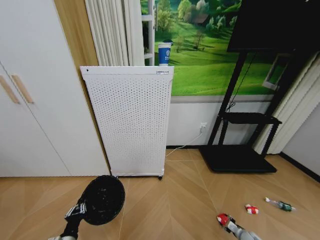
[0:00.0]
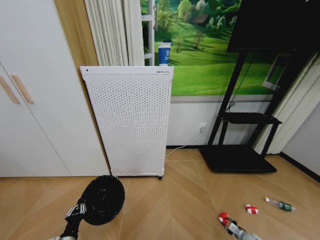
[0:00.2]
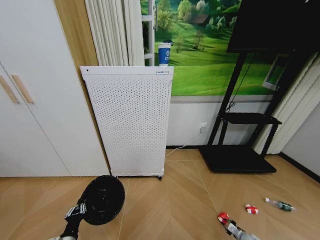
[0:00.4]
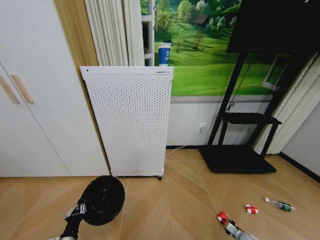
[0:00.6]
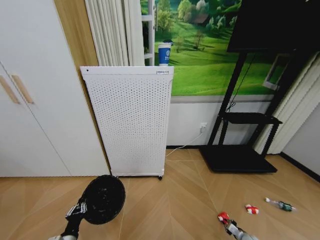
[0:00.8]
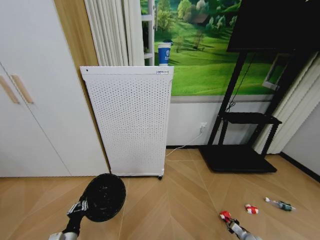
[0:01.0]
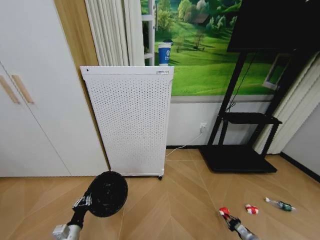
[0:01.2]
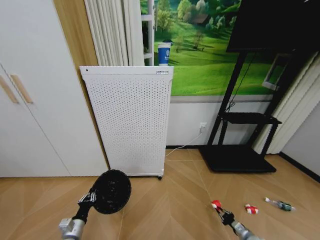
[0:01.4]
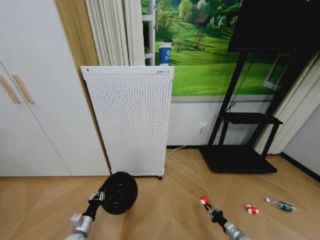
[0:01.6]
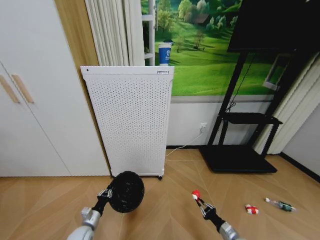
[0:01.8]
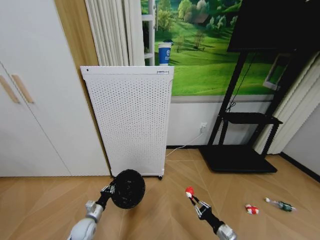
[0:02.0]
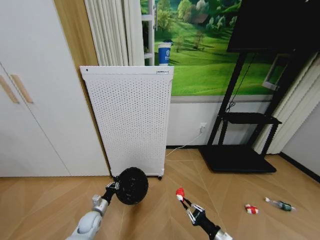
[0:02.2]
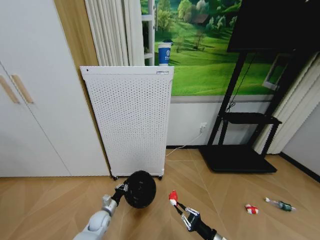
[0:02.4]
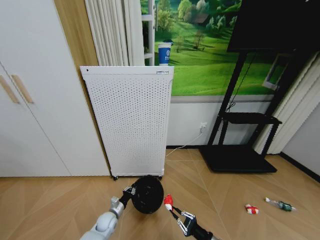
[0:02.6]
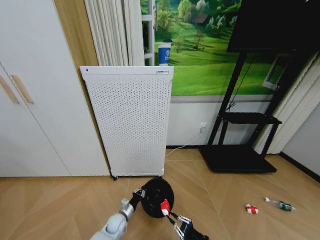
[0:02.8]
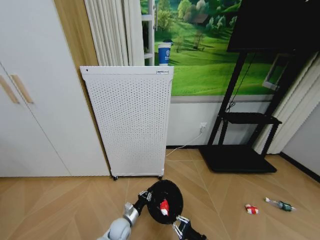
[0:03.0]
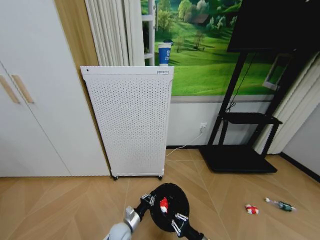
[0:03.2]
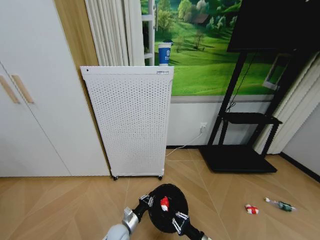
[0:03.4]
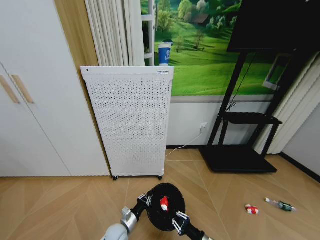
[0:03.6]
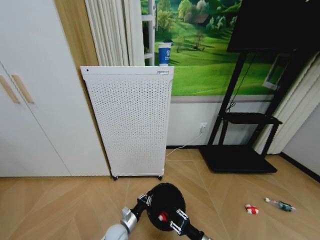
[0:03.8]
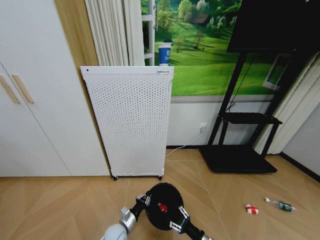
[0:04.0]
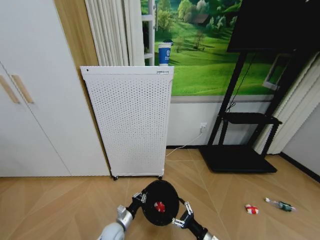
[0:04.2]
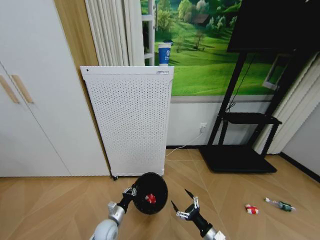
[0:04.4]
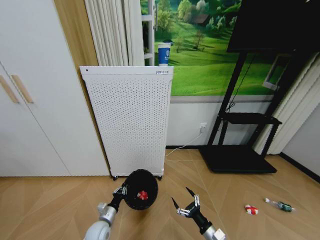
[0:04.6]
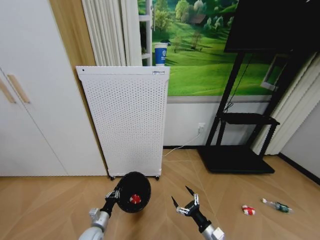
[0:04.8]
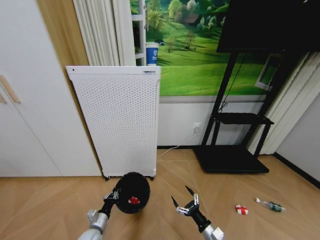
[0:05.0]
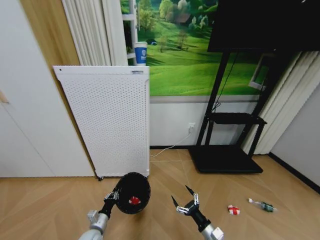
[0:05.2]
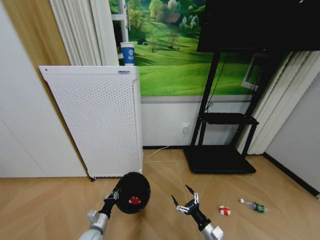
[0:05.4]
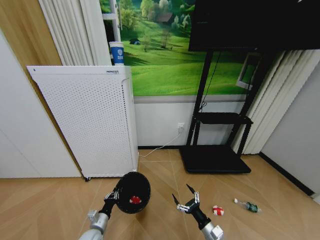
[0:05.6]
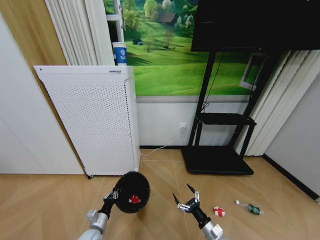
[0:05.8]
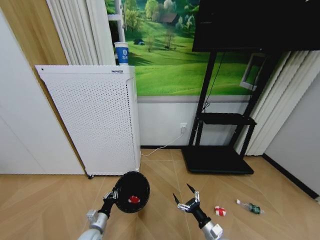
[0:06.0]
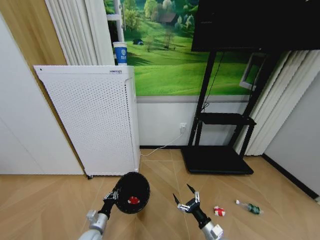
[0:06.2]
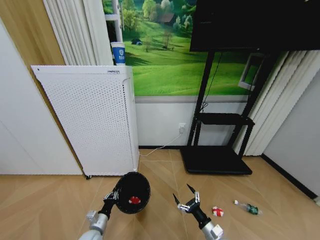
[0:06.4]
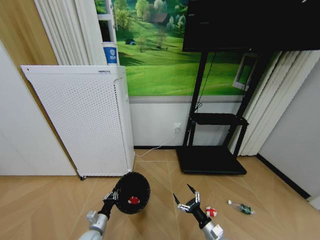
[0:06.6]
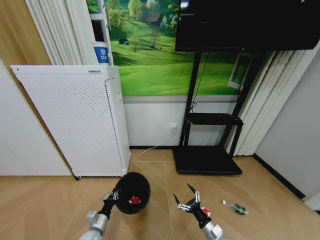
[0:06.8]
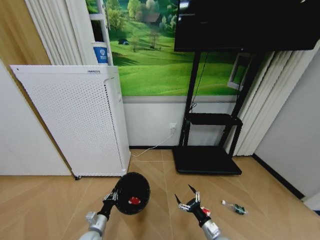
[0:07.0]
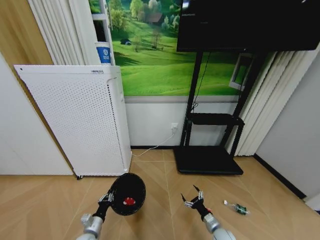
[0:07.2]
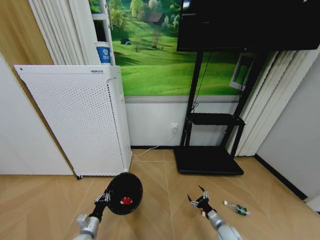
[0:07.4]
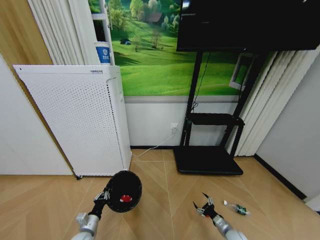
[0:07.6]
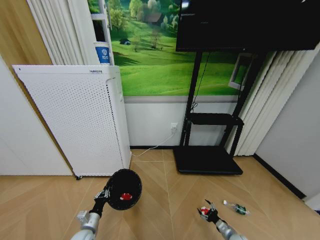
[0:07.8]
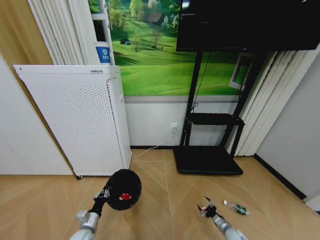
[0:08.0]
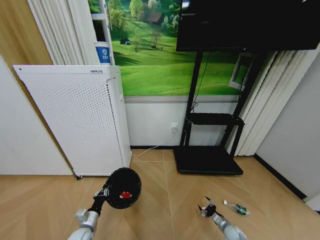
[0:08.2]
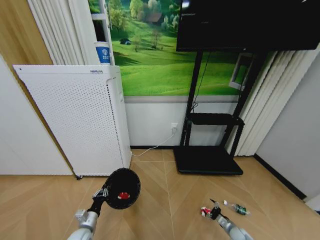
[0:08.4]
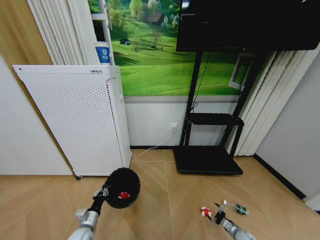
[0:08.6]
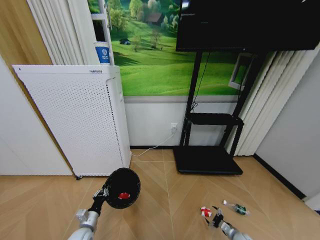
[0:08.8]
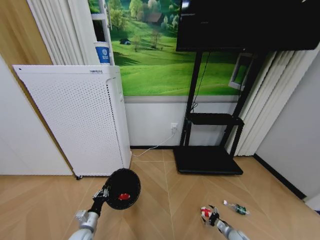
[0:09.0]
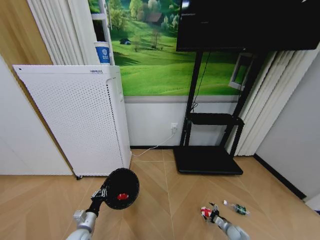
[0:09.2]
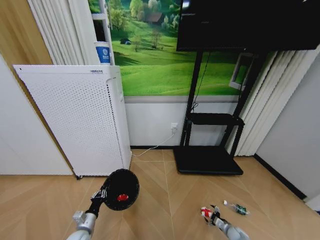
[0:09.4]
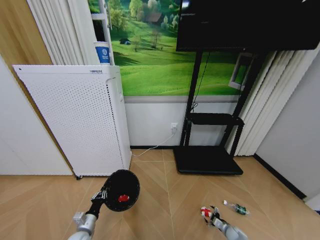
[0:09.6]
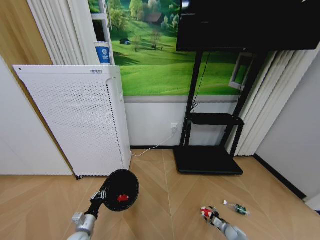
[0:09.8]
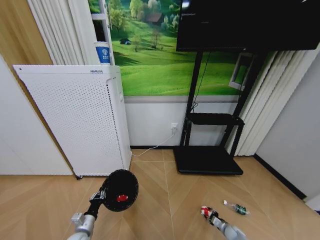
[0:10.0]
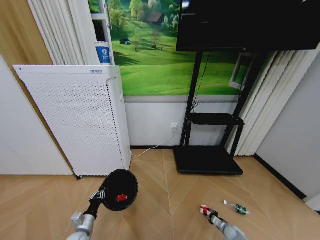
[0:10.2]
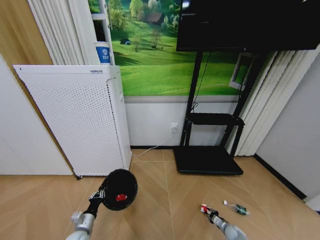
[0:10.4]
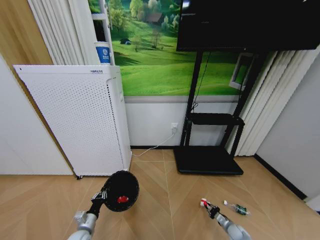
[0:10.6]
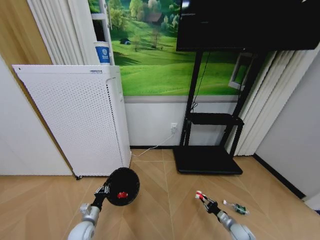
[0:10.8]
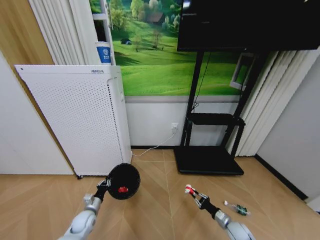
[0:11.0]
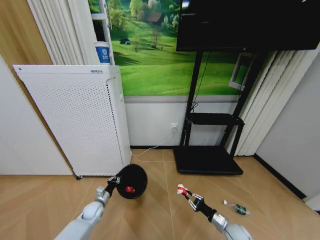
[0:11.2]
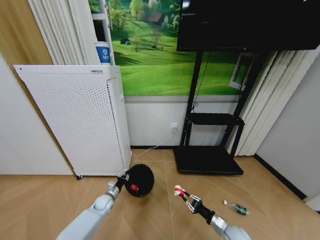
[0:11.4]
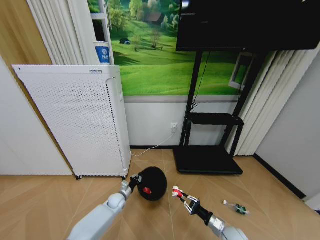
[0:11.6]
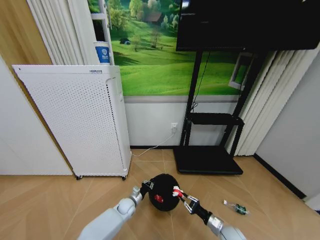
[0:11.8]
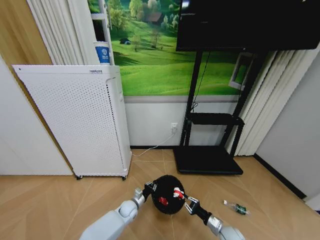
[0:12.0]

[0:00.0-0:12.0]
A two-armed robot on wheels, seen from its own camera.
Task of the whole recording: Pick up the trash bin and place the garbage on the floor into it.
0:00.0 to 0:01.6: The left gripper goes some 5 cm forward. Meanwhile the right gripper is displaced to the left and upward by about 10 cm, and closes.
0:01.6 to 0:03.0: The left gripper travels to the right and forward by about 20 cm; the right gripper travels to the left and upward by approximately 20 cm.
0:03.0 to 0:04.4: The right gripper opens, while the left gripper shifts by roughly 5 cm.
0:04.4 to 0:06.0: The left gripper goes some 5 cm to the left.
0:06.0 to 0:07.6: The right gripper heads to the right and downward, covering roughly 15 cm.
0:07.6 to 0:09.0: The right gripper goes about 10 cm downward and to the right.
0:09.0 to 0:10.4: The right gripper closes.
0:10.4 to 0:12.0: The left gripper heads to the right and forward, covering some 25 cm; the right gripper shifts approximately 15 cm upward and to the left.

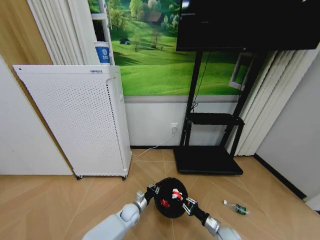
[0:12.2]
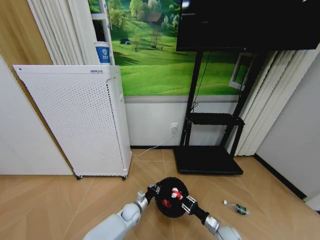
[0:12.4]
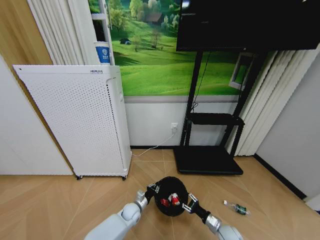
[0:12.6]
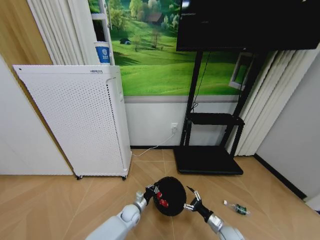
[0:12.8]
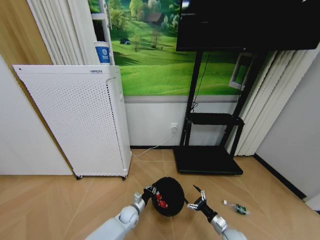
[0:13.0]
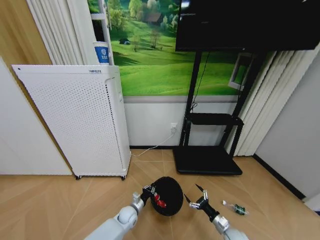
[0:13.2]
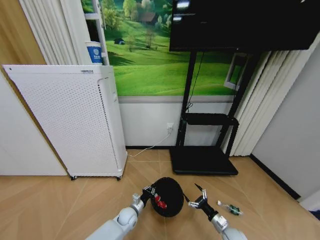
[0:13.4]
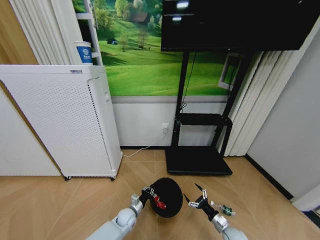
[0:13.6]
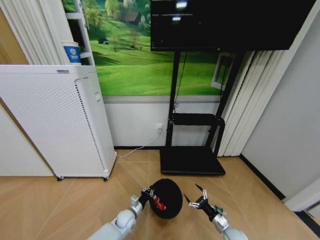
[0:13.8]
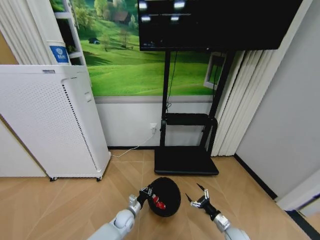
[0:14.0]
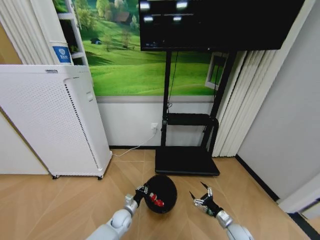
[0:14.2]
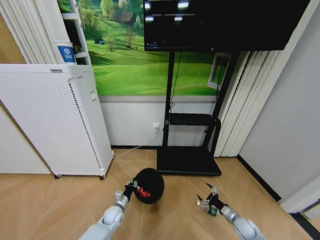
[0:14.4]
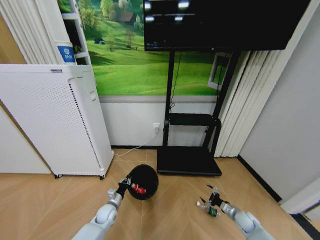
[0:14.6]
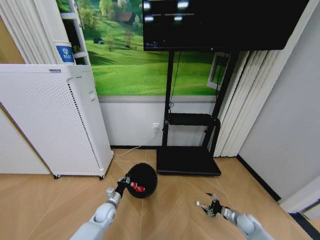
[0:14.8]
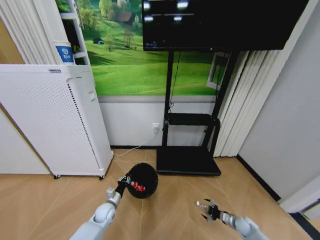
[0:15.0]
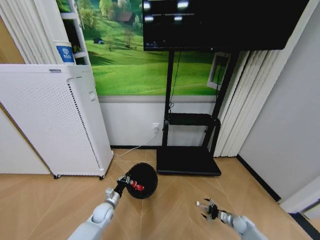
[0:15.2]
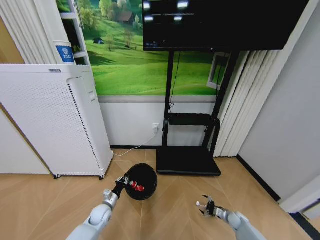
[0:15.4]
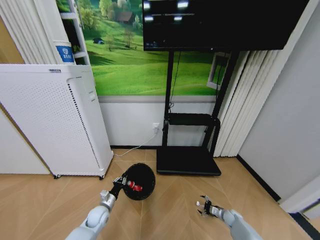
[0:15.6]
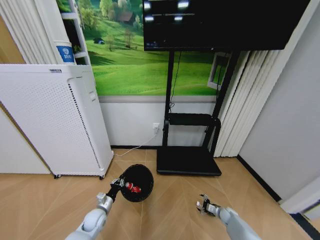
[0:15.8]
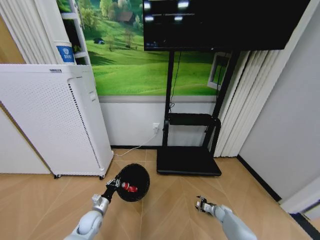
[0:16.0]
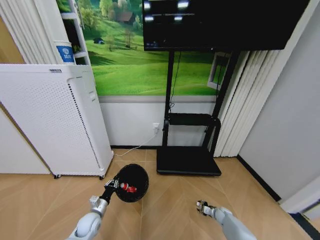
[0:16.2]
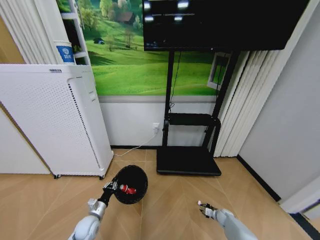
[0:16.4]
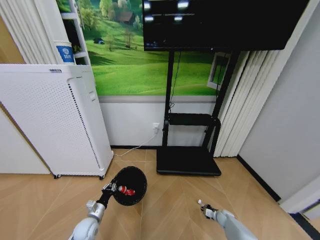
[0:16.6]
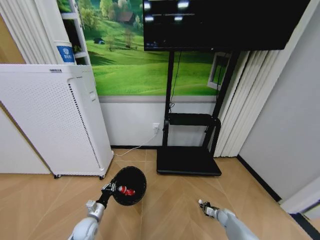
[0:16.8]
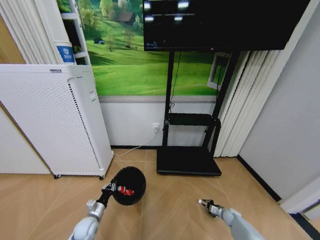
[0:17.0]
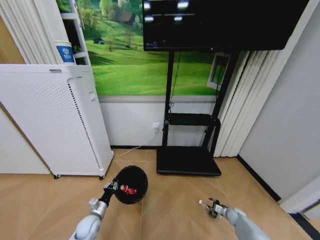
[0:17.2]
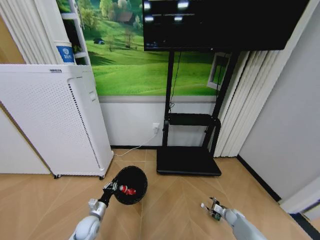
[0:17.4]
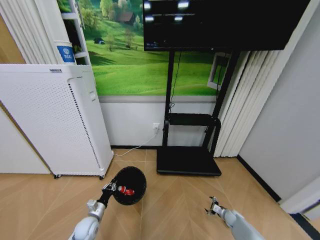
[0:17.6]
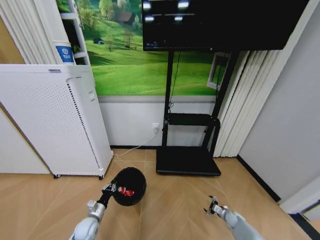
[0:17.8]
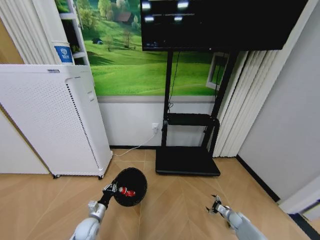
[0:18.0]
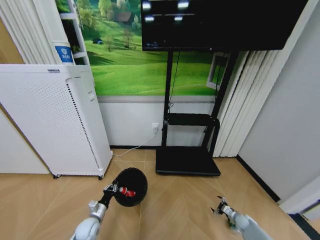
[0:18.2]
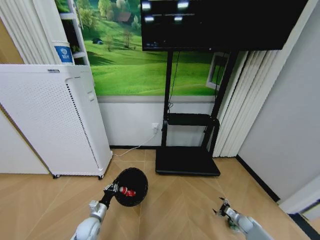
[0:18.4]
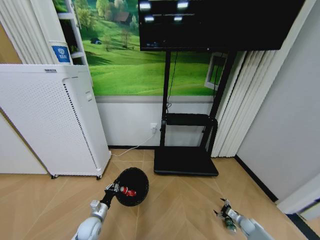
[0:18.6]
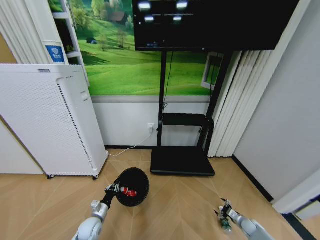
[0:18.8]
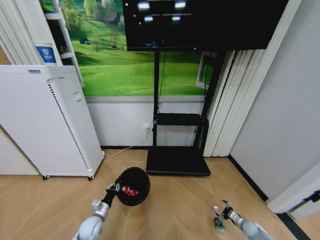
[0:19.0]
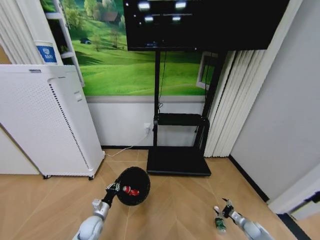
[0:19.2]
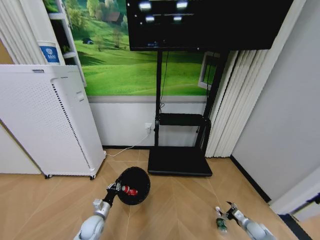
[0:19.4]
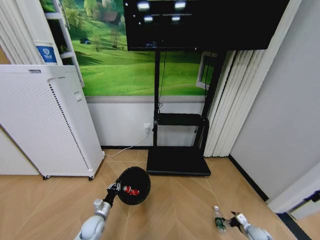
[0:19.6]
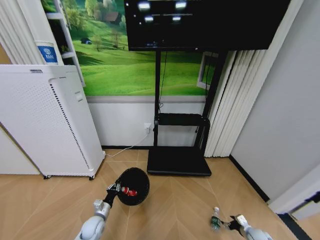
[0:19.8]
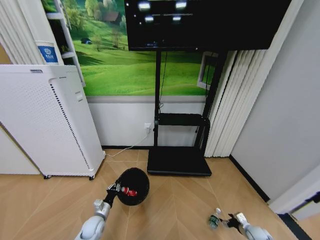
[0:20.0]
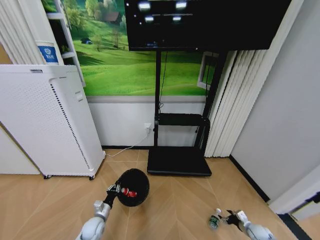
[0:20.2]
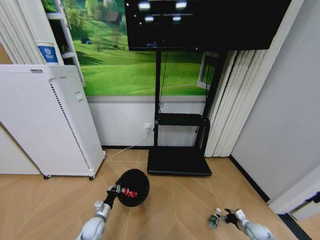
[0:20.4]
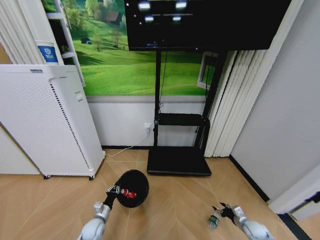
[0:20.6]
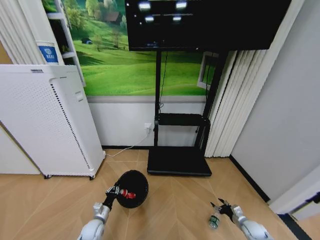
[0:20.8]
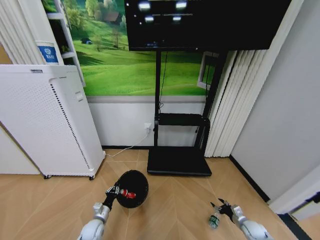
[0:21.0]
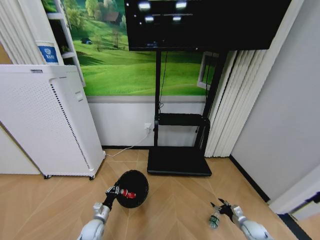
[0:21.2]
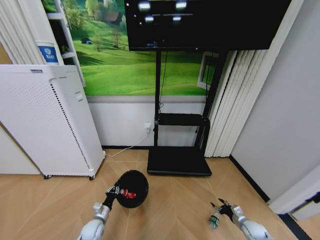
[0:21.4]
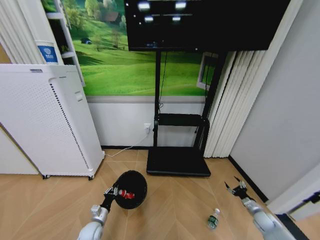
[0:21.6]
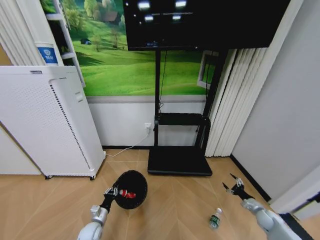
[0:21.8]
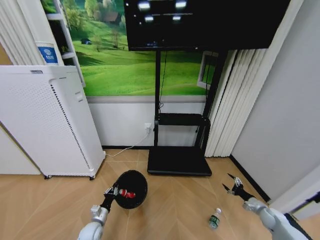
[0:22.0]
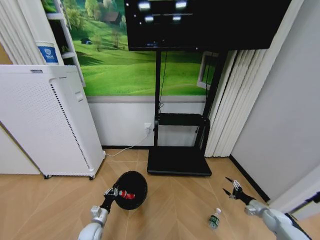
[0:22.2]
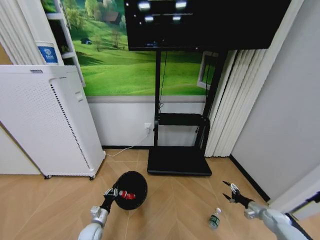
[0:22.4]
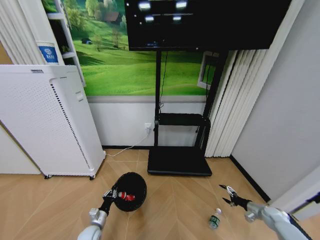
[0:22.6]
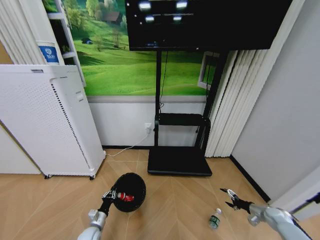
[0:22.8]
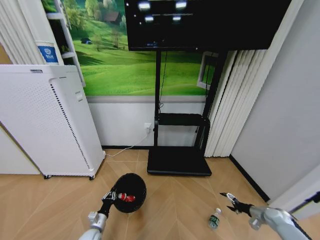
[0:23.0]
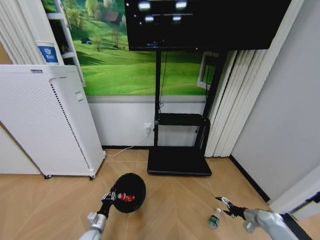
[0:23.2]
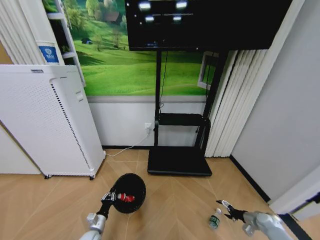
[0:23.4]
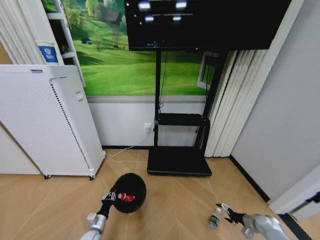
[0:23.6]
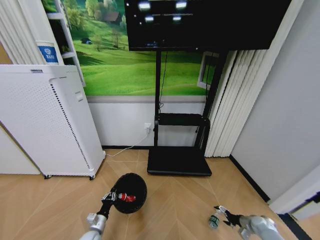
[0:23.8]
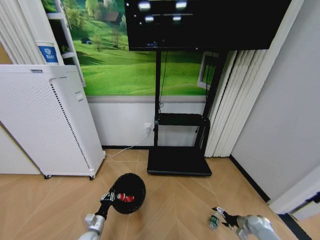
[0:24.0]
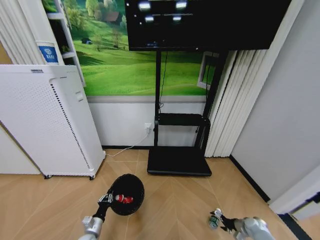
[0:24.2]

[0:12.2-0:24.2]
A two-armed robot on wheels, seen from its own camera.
Task of the whole recording: Pick up the trash bin and place the garbage on the floor into it.
0:12.2 to 0:13.8: The right gripper opens up.
0:13.8 to 0:15.2: The left gripper shifts roughly 10 cm to the left, while the right gripper goes some 15 cm to the right and forward.
0:15.2 to 0:16.6: The left gripper moves backward and to the left, about 10 cm. The right gripper travels to the left by some 5 cm, and closes.
0:16.6 to 0:18.2: The right gripper goes some 5 cm to the right, and opens its fingers.
0:18.2 to 0:19.8: The right gripper travels backward by some 5 cm.
0:19.8 to 0:21.2: The right gripper ends up roughly 5 cm from where it was.
0:21.2 to 0:22.6: The right gripper shifts approximately 10 cm to the right and upward.
0:22.6 to 0:24.2: The right gripper travels downward and to the left by roughly 10 cm.
